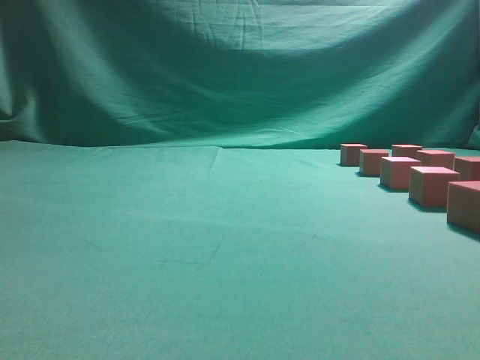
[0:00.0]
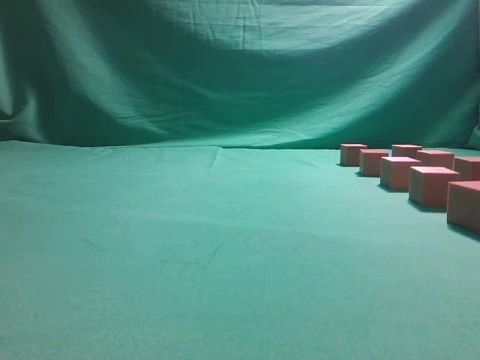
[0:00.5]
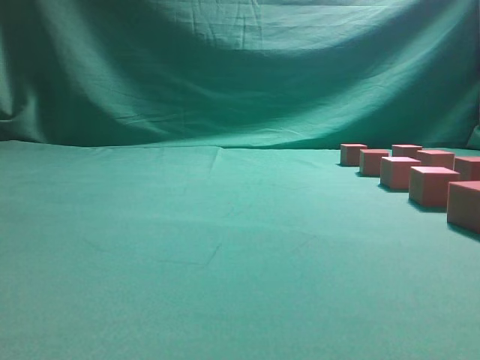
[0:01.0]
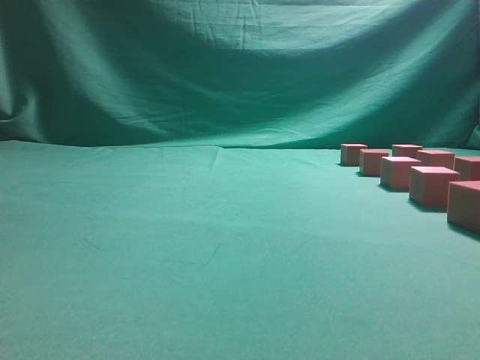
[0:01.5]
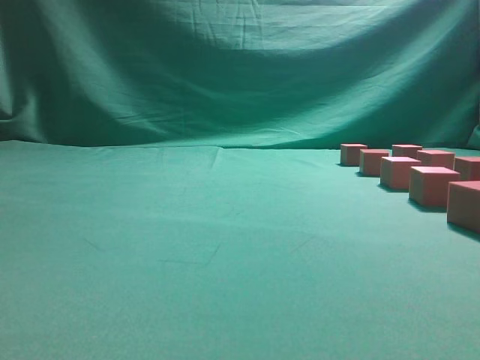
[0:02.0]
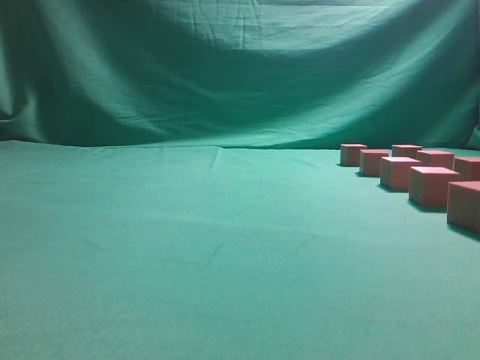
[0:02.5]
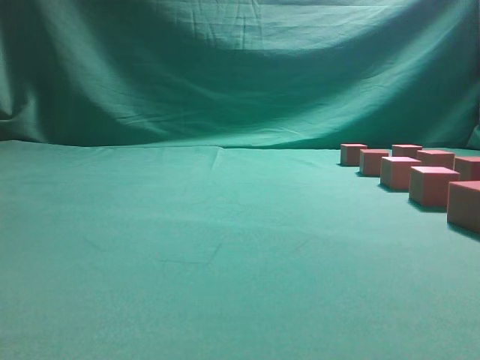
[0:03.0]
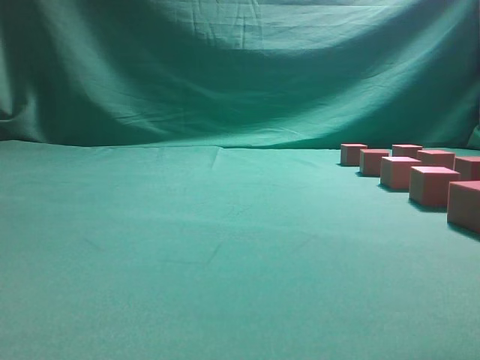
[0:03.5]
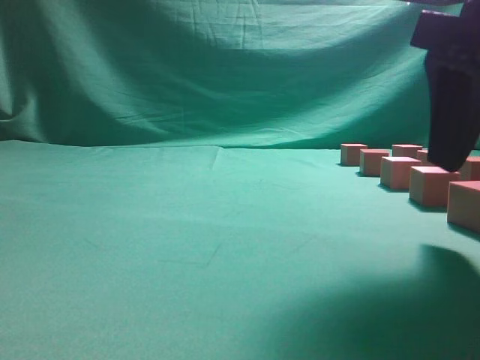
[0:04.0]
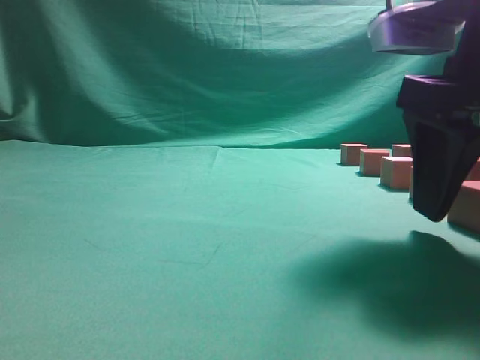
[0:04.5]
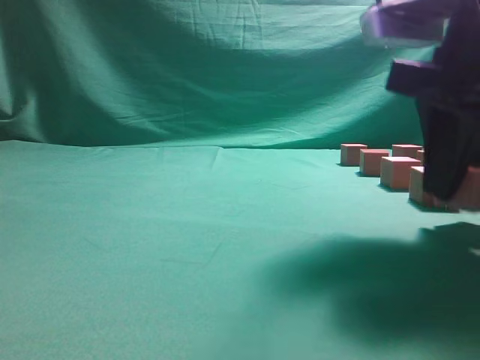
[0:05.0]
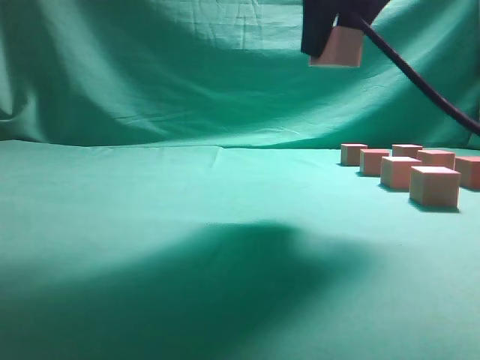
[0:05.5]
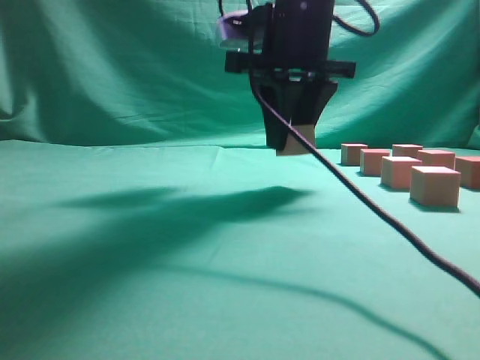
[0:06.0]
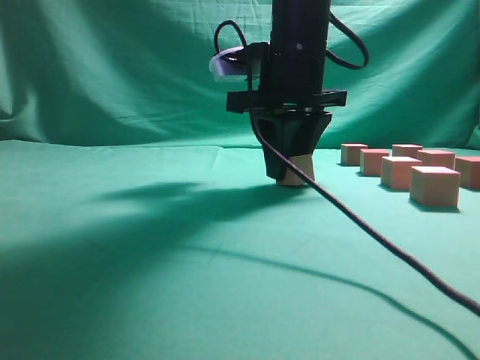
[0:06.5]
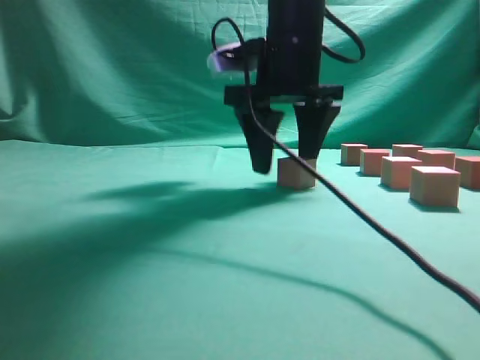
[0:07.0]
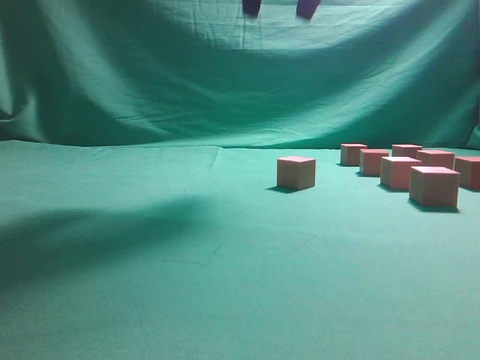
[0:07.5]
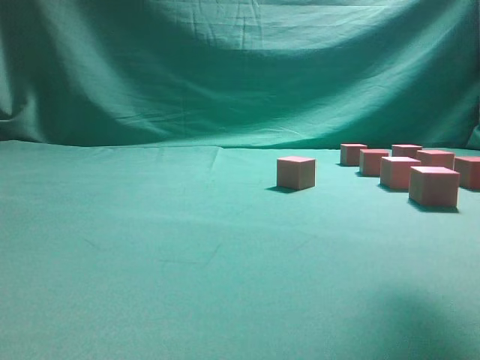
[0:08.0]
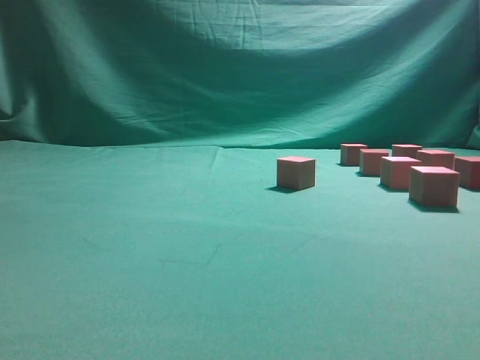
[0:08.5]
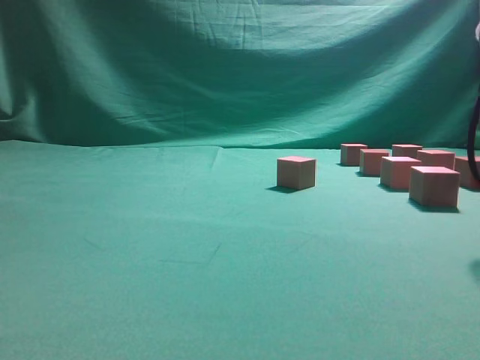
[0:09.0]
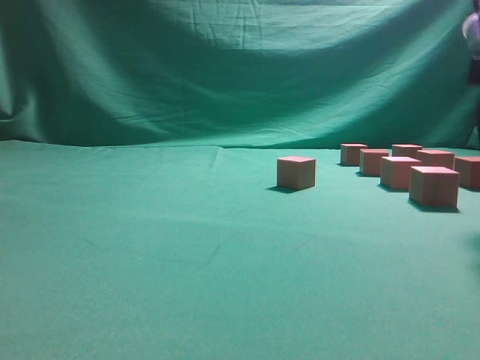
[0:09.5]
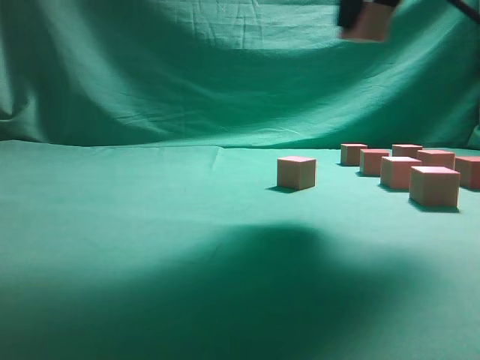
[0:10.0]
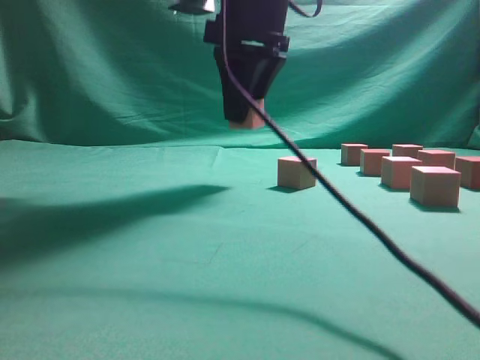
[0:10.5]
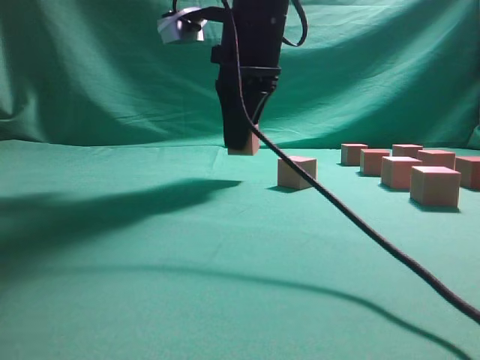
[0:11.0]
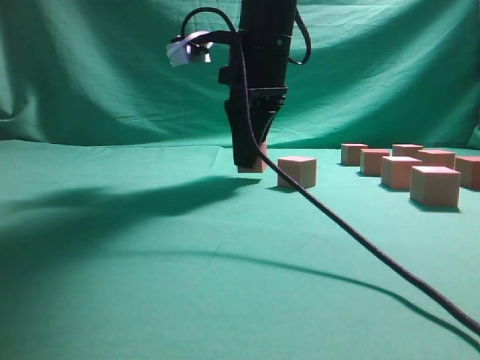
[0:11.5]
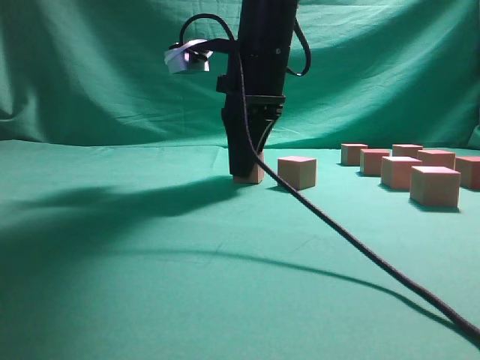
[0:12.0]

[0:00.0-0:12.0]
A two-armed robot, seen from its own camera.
Task of the whole recording: pick up the multiple cubes in two columns one by one and place them in another position on the table.
Step, 0:00.0 to 0:05.0: Pick up the block on the table.
Step, 0:05.5 to 0:07.0: Place the block at the correct position to assemble the letter S.
Step, 0:07.5 to 0:09.5: Pick up the block on the table.
0:02.0 to 0:04.0: The right gripper travels forward and to the left by approximately 20 cm, and opens.
0:04.0 to 0:06.0: The right gripper is displaced forward and to the left by some 20 cm, and closes its fingers.
0:06.0 to 0:08.0: The right gripper goes roughly 20 cm to the right, upward and backward, and opens its fingers.
0:08.0 to 0:10.0: The right gripper heads to the left, covering about 10 cm, travels downward and back again, about 15 cm each way, and closes its fingers.
0:10.0 to 0:12.0: The right gripper goes about 20 cm downward, to the left and forward.

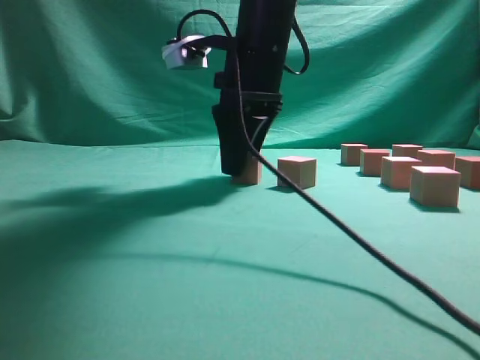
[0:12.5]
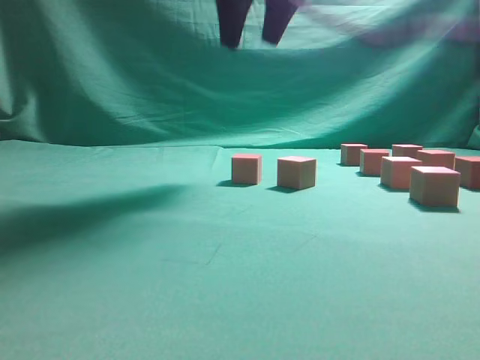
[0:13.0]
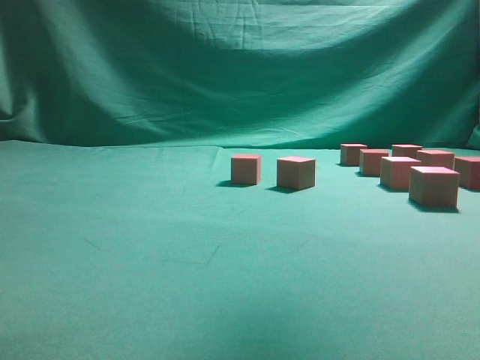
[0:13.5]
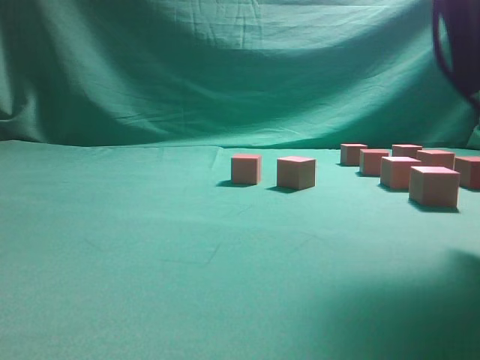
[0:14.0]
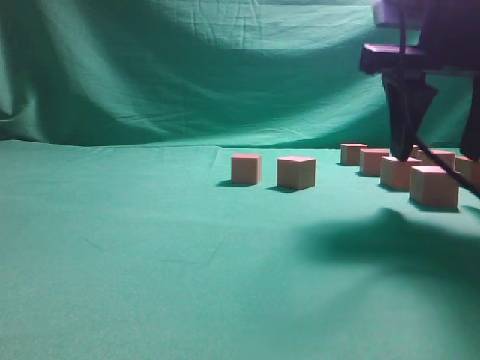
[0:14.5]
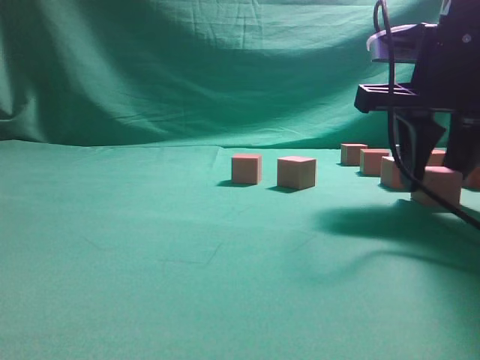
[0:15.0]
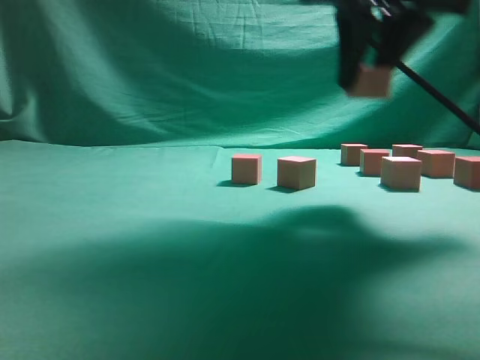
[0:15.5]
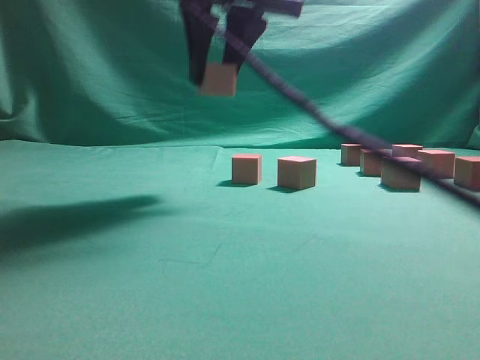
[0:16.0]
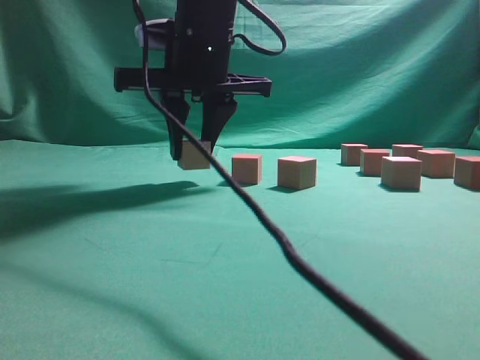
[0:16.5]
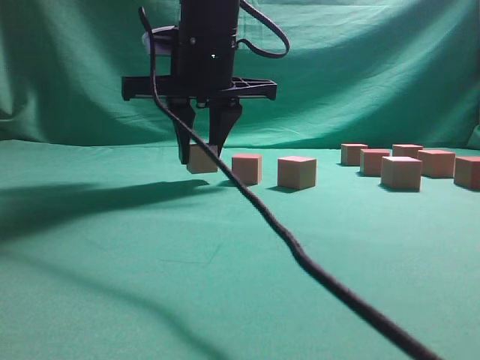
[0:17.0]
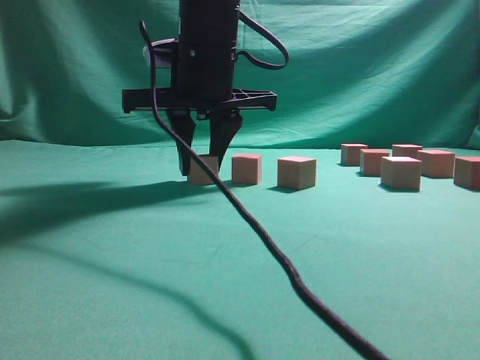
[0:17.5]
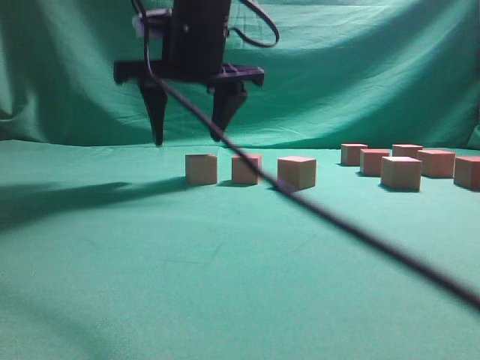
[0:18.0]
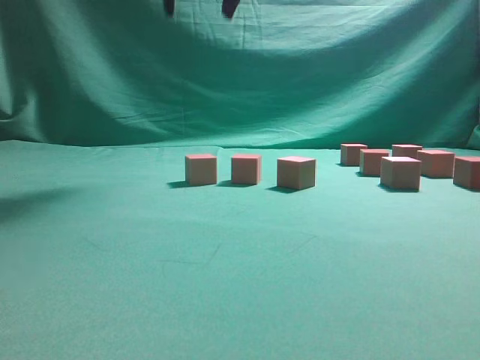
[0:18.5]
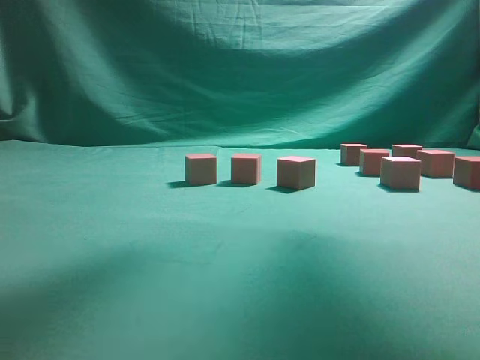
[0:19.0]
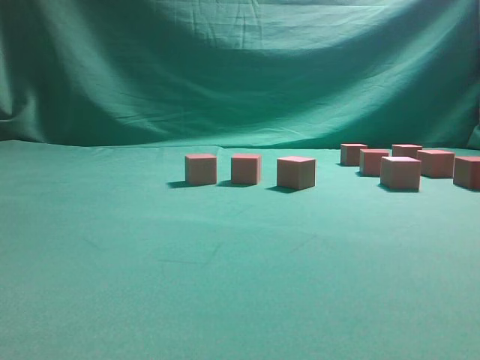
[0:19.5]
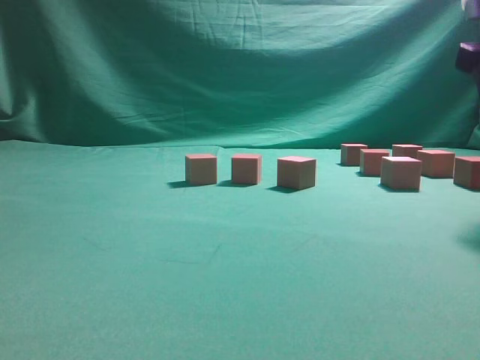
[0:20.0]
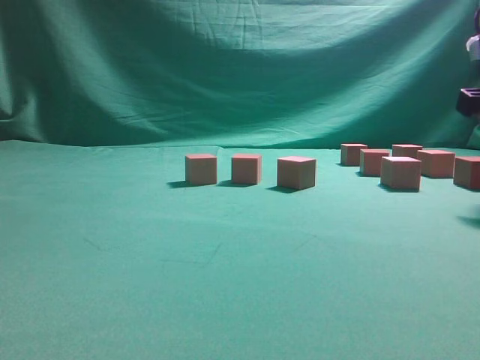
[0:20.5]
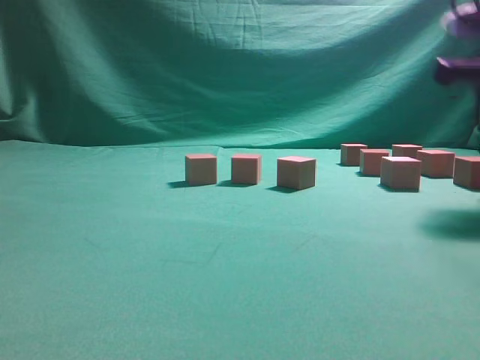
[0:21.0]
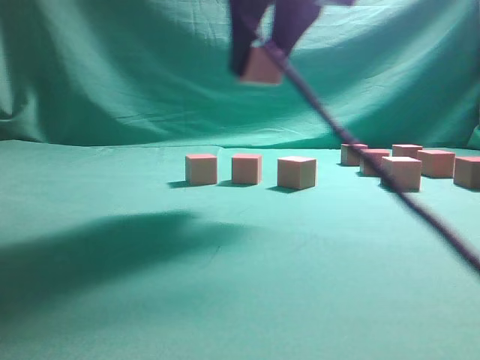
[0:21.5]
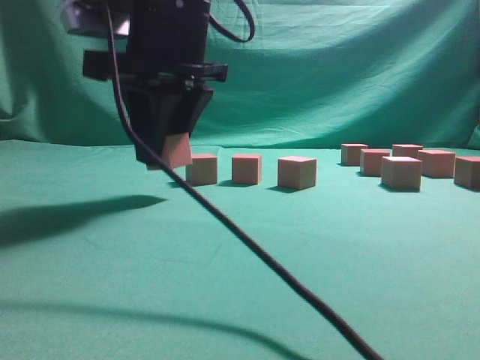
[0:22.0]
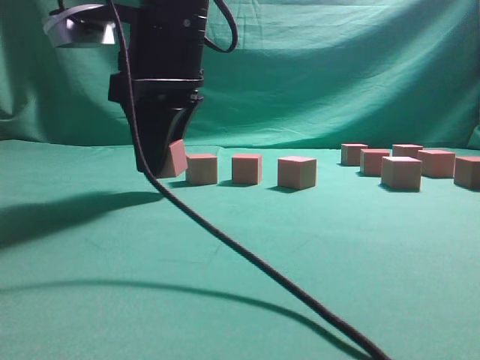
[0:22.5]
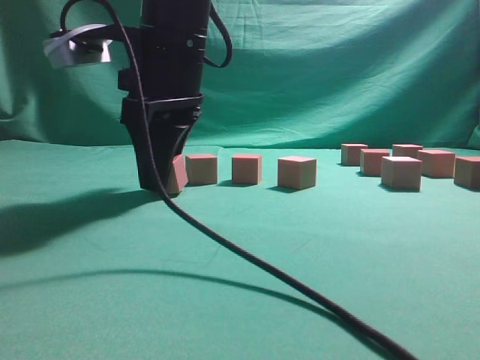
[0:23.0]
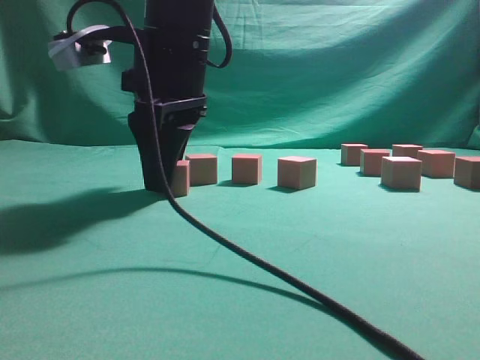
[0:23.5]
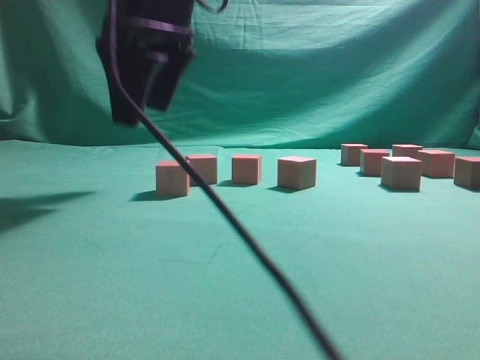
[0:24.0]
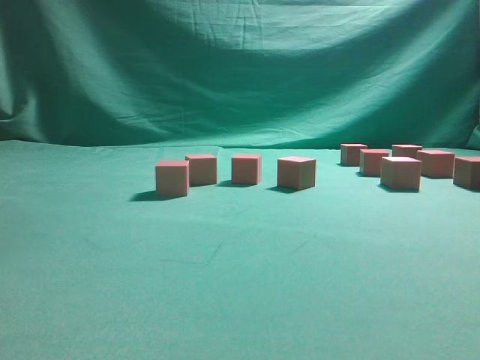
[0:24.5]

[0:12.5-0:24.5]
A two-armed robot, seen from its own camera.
Task of the whole recording: pick up the multiple cubes in two columns one by one and place them in another position on the table.
Step, 0:13.5 to 0:15.0: Pick up the block on the table.
Step, 0:15.5 to 0:18.0: Place the block at the correct position to assemble the letter S.
Step, 0:18.5 to 0:20.5: Pick up the block on the table.
Step, 0:21.5 to 0:24.0: Place the block at the correct position to assemble the letter S.
0:12.5 to 0:14.5: The right gripper shifts roughly 20 cm to the right and backward, and goes upward and returns, about 20 cm each way.
0:14.5 to 0:16.5: The right gripper moves to the left, approximately 20 cm, and closes up.
0:16.5 to 0:18.5: The right gripper goes roughly 15 cm upward, and opens up.
0:18.5 to 0:20.5: The right gripper travels to the right and downward by about 35 cm.
0:20.5 to 0:22.5: The right gripper goes approximately 35 cm to the left.
0:22.5 to 0:24.5: The right gripper travels upward and to the right by roughly 20 cm, and opens.

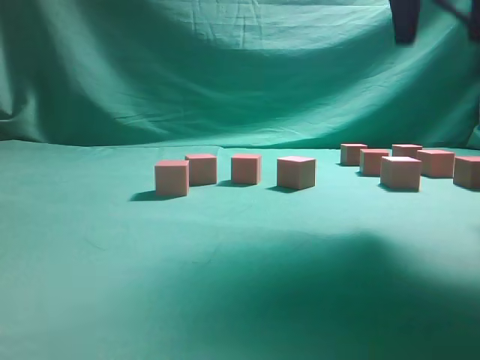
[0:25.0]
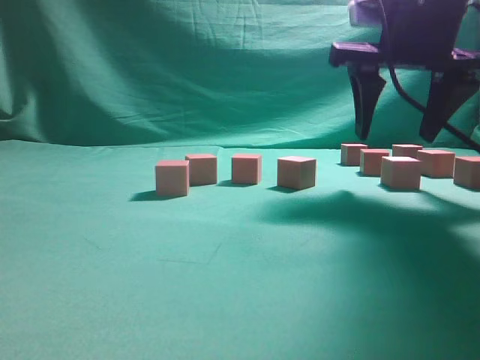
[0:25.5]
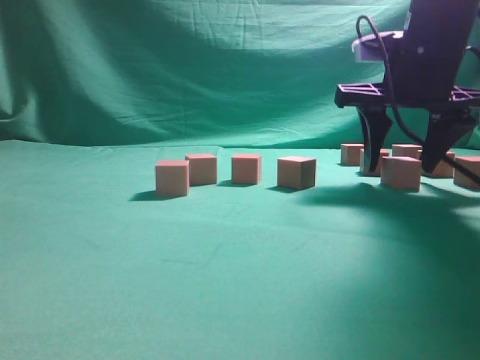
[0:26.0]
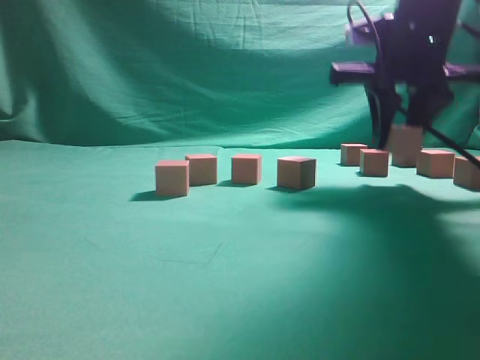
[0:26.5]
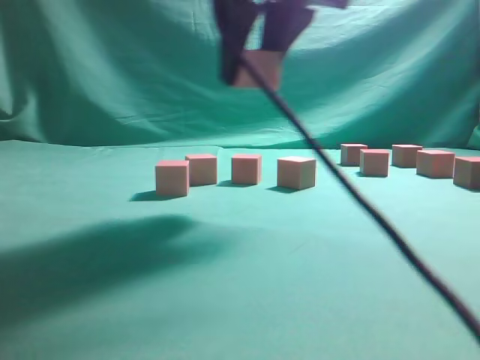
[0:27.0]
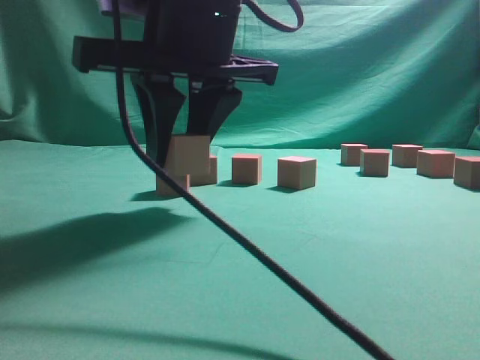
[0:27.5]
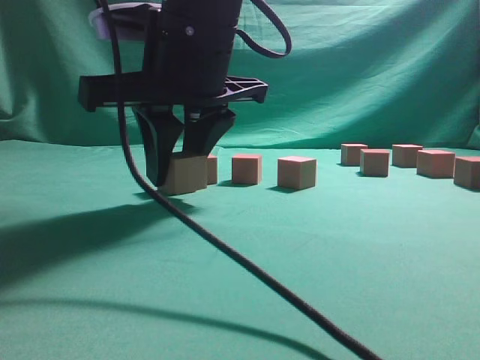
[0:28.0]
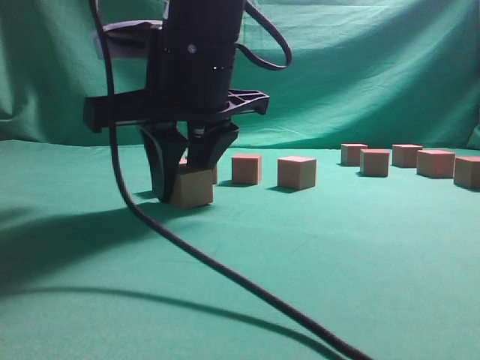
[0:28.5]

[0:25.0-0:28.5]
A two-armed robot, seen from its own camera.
Task of the whole recording: pick up the multiple cubes in two columns one by one and place them in another position on the table.
Step, 0:25.0 to 0:26.5: Pick up the block on the table.
0:25.0 to 0:27.0: The right gripper shifts some 15 cm to the left, and closes its fingers.
0:27.0 to 0:28.5: The right gripper goes approximately 10 cm downward and to the left.
